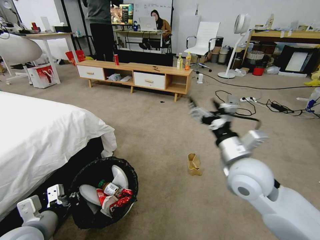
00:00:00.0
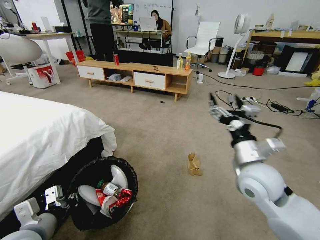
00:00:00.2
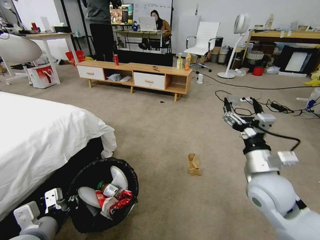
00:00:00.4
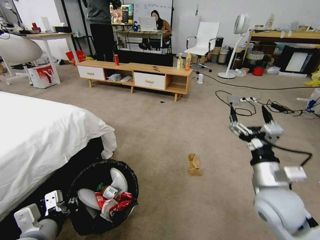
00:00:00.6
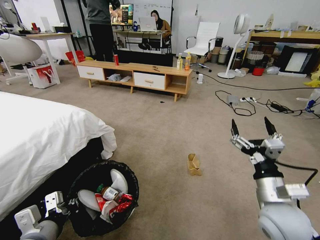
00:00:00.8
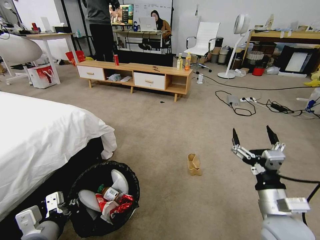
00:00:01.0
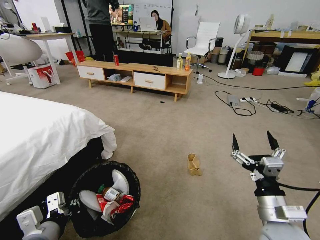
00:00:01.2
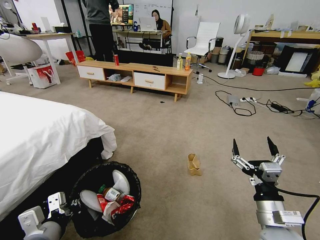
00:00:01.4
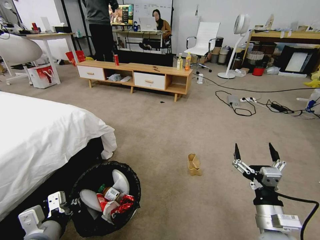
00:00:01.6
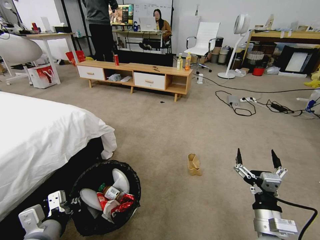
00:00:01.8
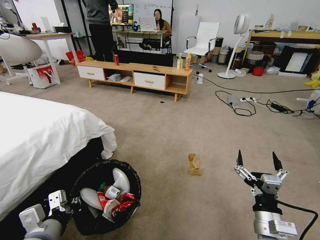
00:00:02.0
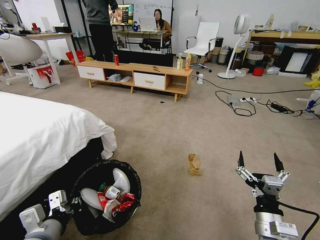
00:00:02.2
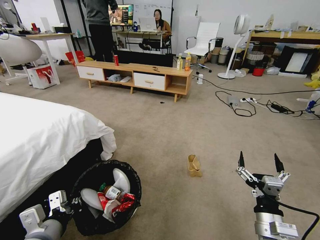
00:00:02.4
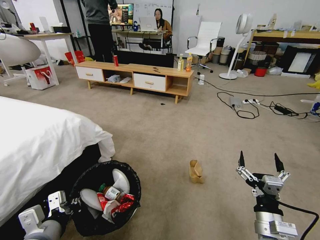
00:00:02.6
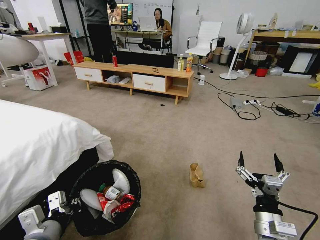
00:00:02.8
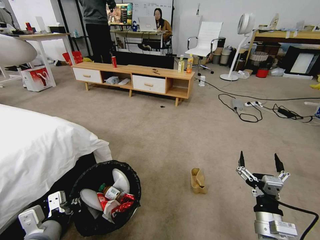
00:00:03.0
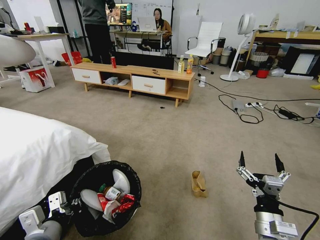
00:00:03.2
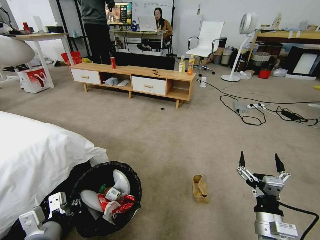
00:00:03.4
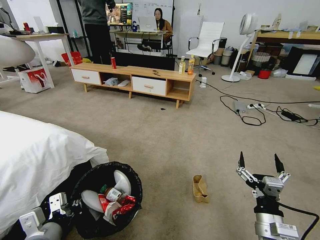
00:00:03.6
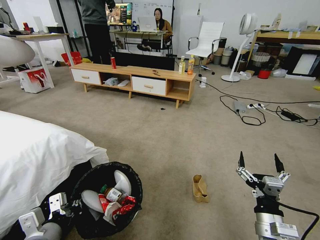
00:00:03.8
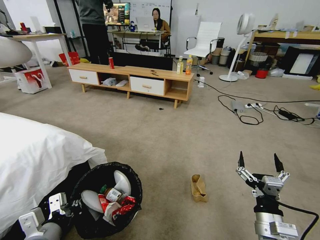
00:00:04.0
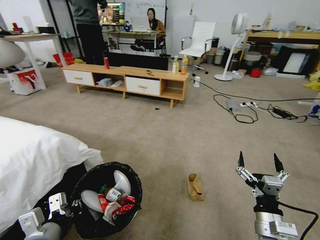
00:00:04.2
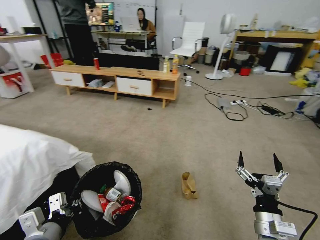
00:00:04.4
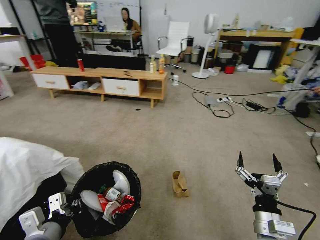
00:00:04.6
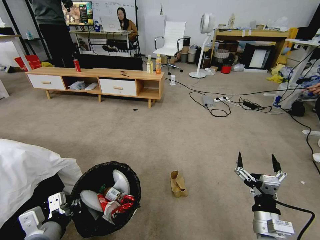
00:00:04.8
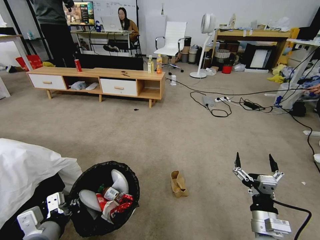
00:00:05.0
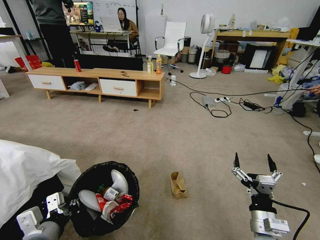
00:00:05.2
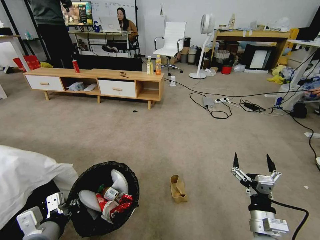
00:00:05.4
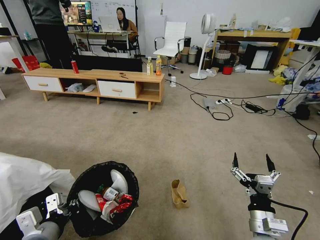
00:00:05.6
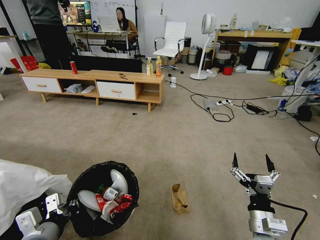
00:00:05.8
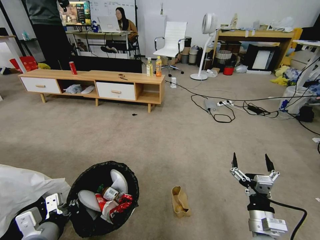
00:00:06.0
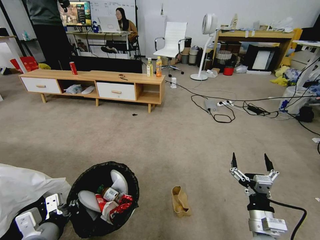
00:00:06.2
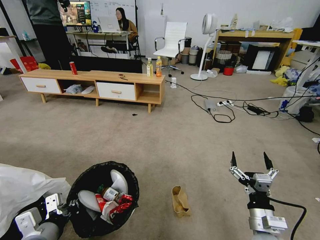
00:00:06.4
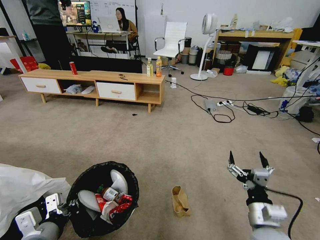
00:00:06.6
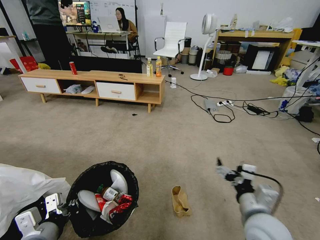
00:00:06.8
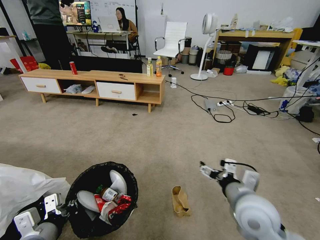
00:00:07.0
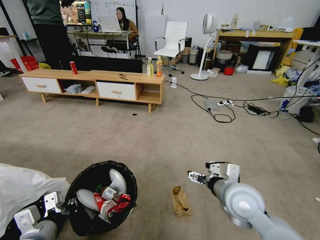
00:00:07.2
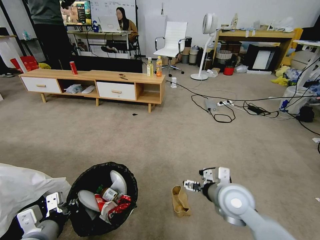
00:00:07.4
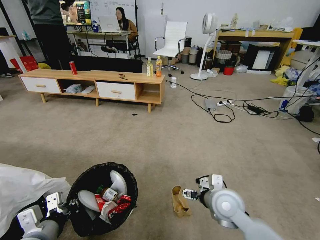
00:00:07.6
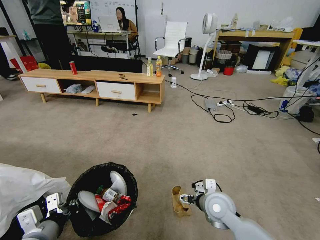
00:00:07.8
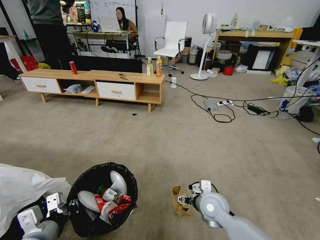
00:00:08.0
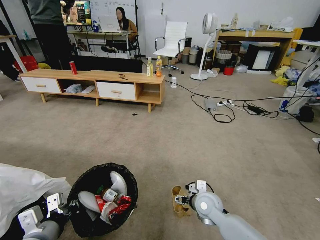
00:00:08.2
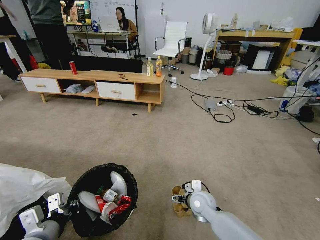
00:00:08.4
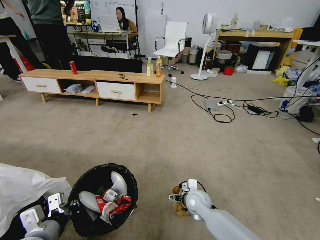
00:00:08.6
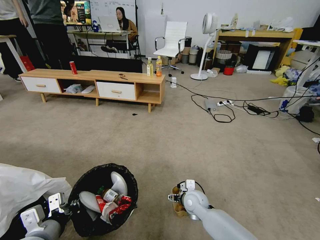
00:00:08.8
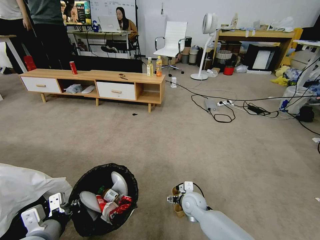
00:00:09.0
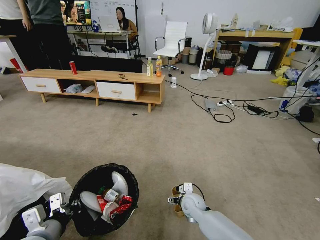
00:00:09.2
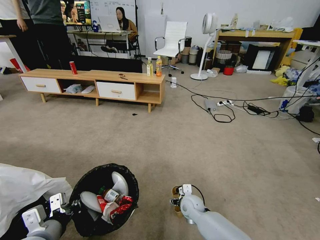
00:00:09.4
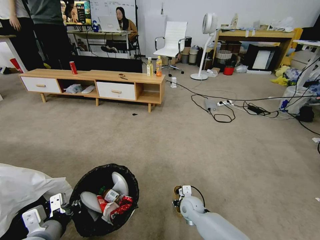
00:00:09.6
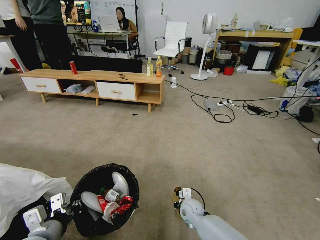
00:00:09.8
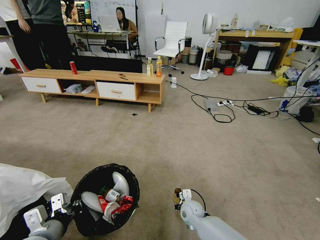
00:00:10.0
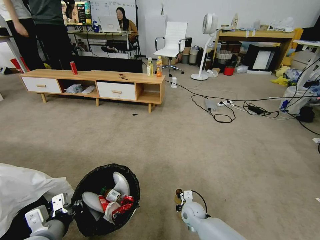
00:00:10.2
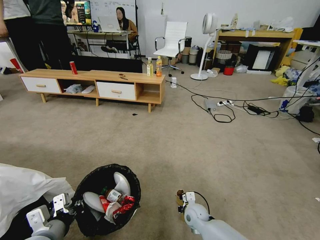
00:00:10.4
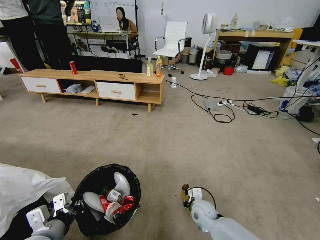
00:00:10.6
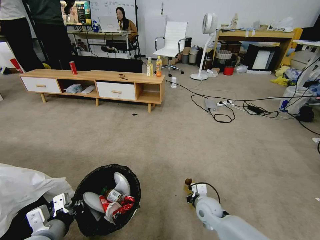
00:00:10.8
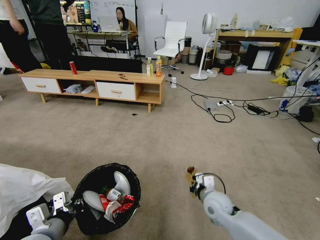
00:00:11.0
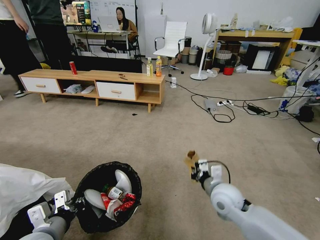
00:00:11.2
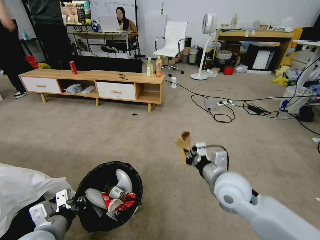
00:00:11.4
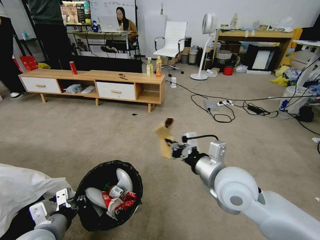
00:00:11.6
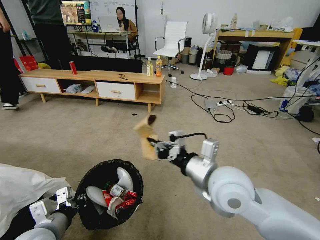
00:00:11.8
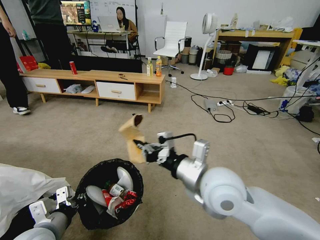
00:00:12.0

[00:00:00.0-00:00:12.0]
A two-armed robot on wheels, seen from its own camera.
Task of the whole recording: Pick up the trash bin and place the garbage on the floor into it.
00:00:00.0 to 00:00:01.6: The right gripper is displaced downward, backward and to the right by approximately 20 cm.
00:00:06.0 to 00:00:07.6: The right gripper is displaced forward and to the left by approximately 15 cm.
00:00:07.6 to 00:00:09.0: The right gripper is displaced downward, forward and to the left by roughly 15 cm.
00:00:09.0 to 00:00:10.4: The right gripper goes some 5 cm downward, and closes.
00:00:10.4 to 00:00:12.0: The right gripper moves upward, approximately 35 cm.

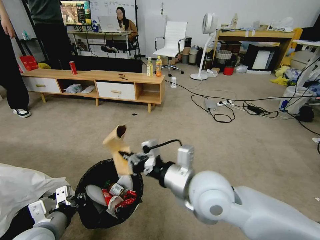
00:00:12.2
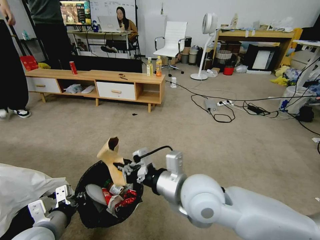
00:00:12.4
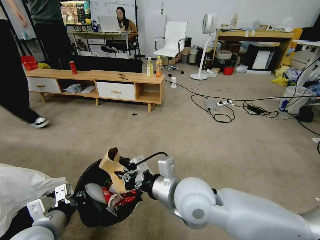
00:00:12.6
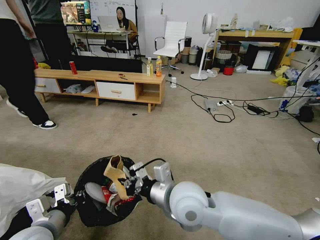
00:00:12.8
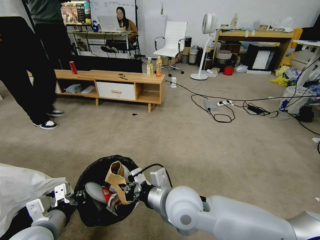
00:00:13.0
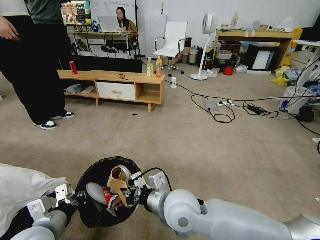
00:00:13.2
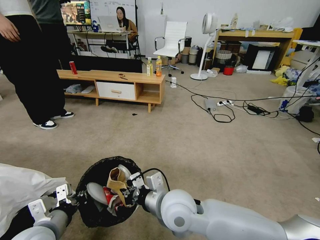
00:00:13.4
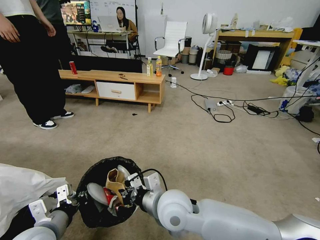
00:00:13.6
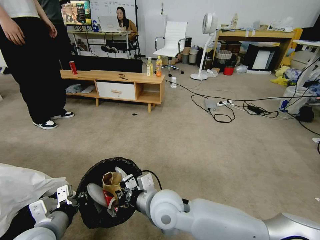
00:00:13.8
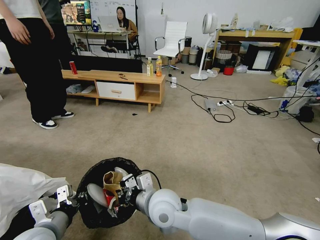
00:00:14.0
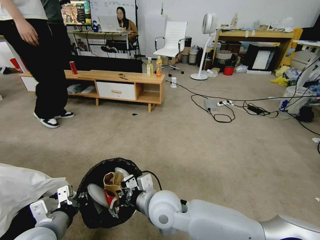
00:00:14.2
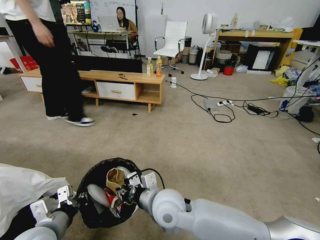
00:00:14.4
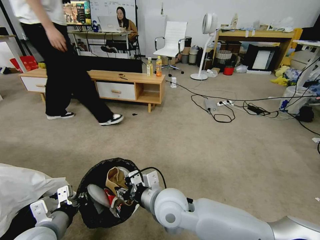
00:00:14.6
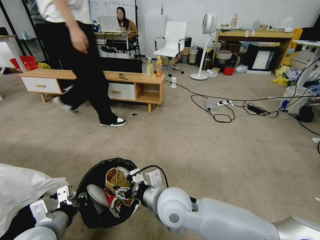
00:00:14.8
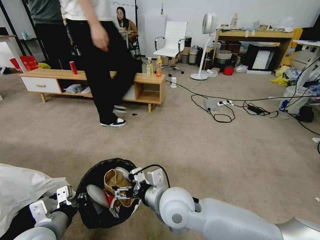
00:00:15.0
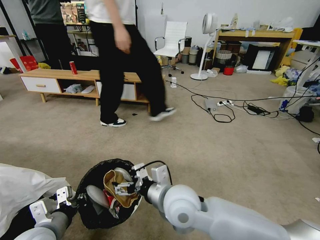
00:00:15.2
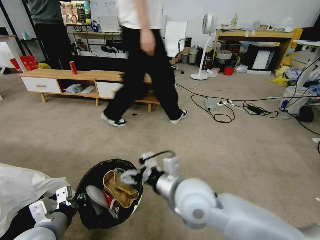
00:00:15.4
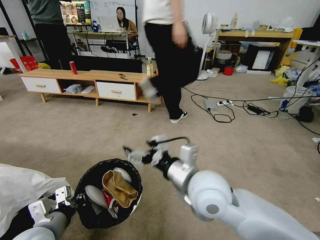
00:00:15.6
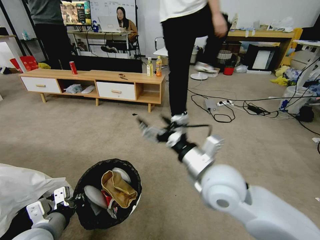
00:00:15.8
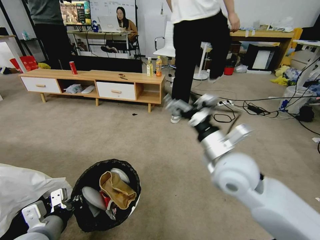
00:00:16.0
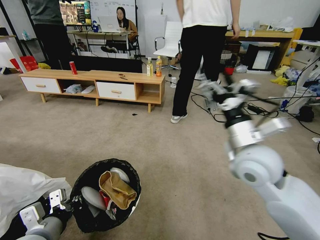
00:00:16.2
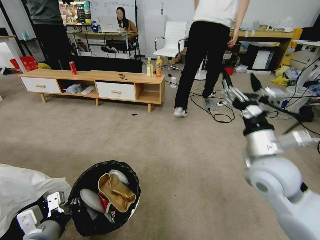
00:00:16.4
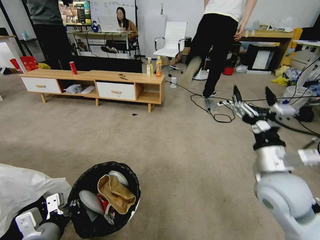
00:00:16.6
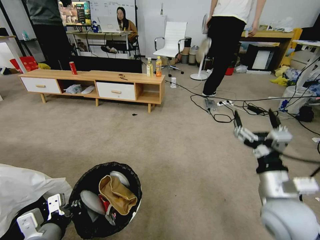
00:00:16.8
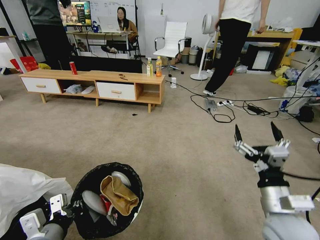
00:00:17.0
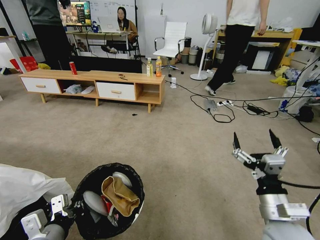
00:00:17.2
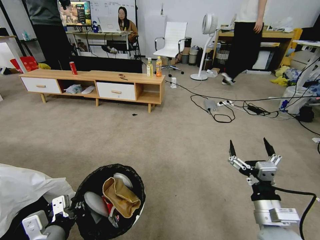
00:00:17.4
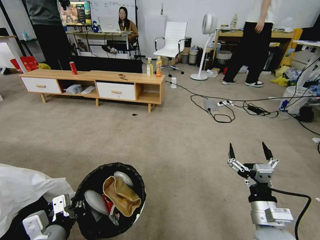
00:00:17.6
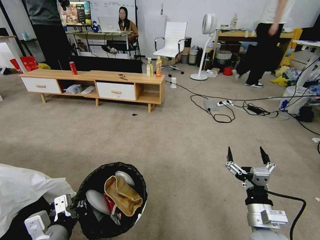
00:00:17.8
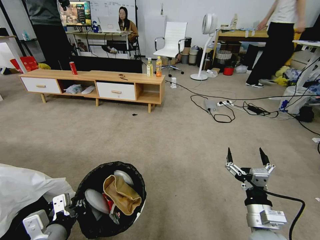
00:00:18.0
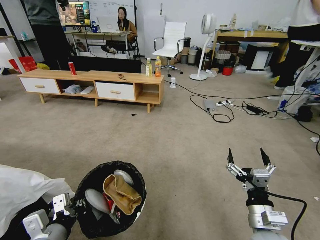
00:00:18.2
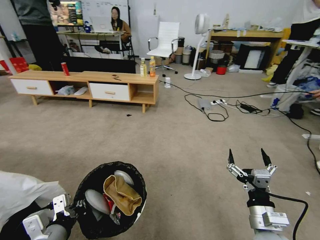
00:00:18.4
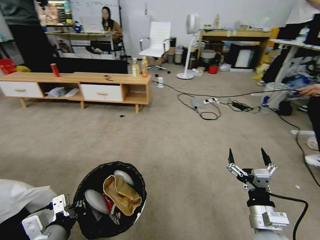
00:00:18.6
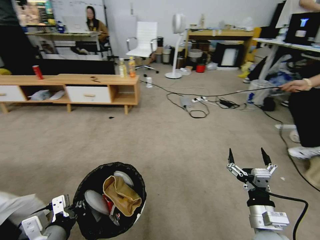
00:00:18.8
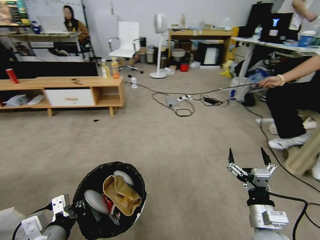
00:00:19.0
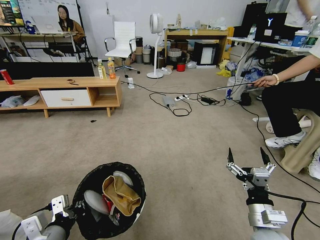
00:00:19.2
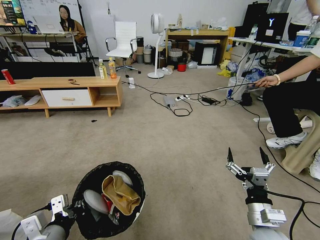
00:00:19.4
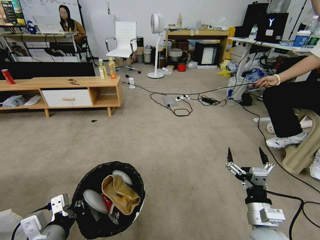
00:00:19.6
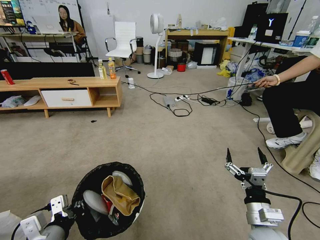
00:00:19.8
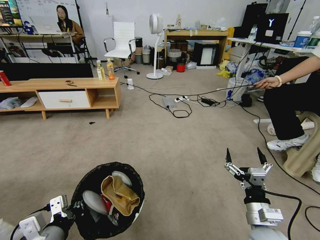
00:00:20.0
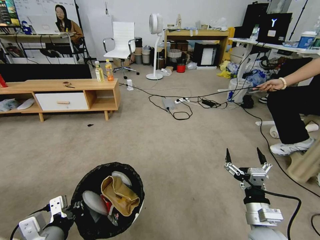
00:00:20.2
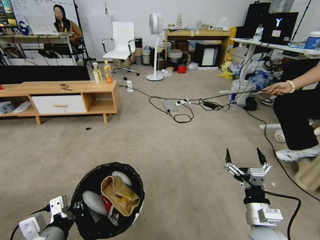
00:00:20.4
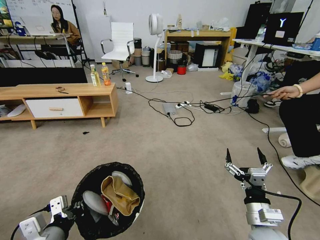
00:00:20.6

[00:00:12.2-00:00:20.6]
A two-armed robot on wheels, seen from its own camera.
Task of the whole recording: Pick up the trash bin and place the garbage on the floor into it.
00:00:12.2 to 00:00:13.6: The right gripper moves downward and to the left, about 10 cm.
00:00:13.6 to 00:00:15.0: The right gripper opens.
00:00:15.0 to 00:00:16.4: The right gripper heads to the right and upward, covering roughly 25 cm.
00:00:16.4 to 00:00:17.8: The right gripper shifts approximately 20 cm downward and backward.
